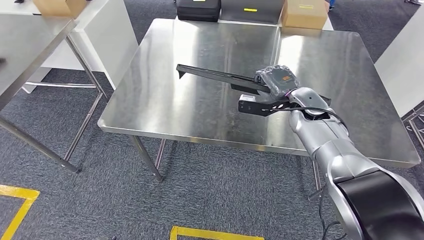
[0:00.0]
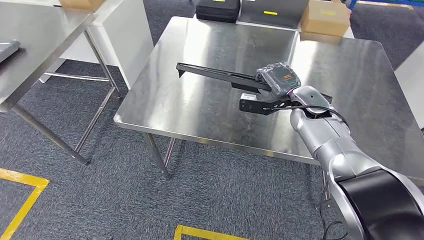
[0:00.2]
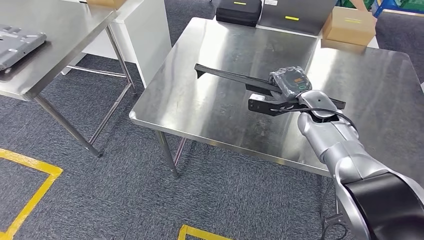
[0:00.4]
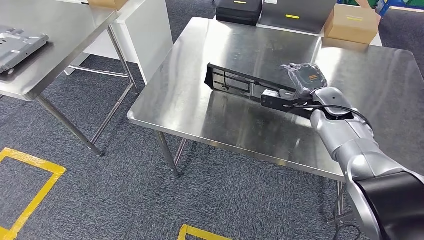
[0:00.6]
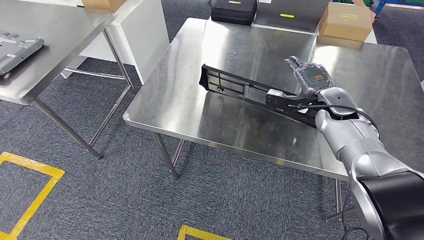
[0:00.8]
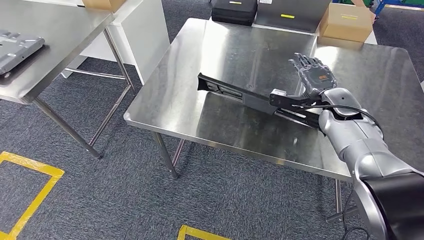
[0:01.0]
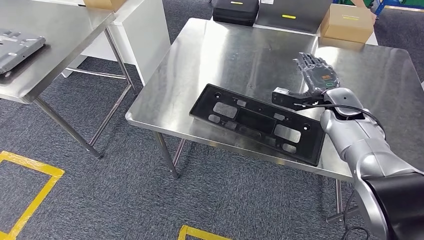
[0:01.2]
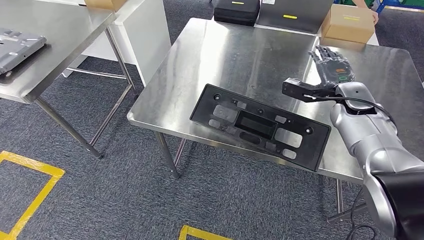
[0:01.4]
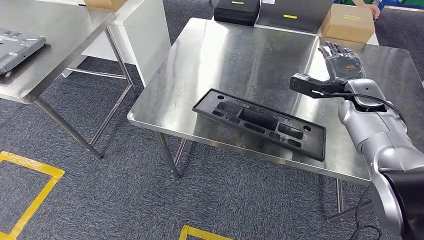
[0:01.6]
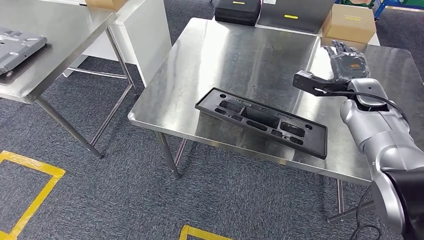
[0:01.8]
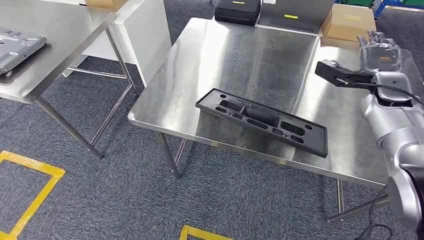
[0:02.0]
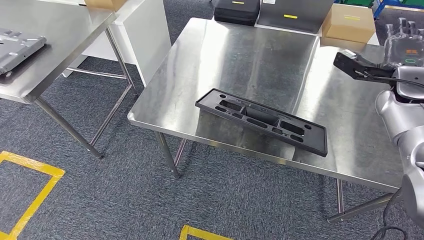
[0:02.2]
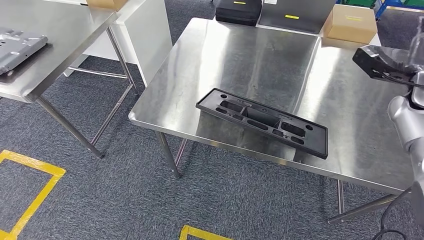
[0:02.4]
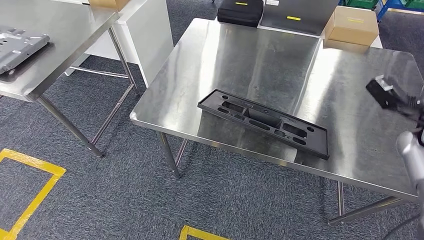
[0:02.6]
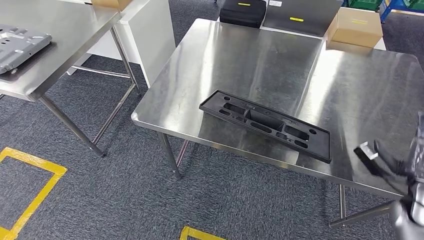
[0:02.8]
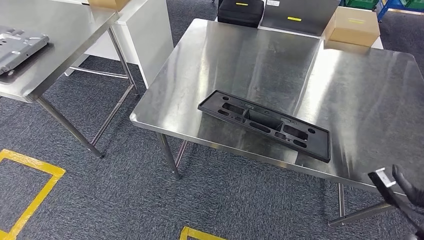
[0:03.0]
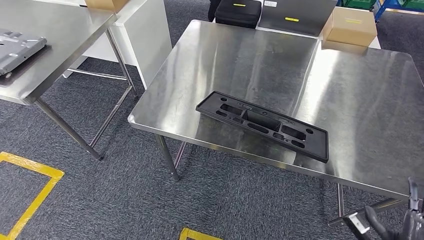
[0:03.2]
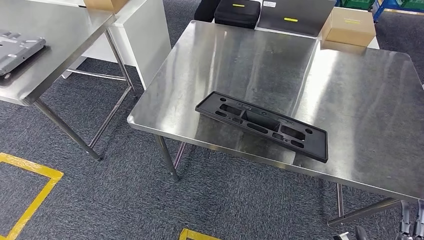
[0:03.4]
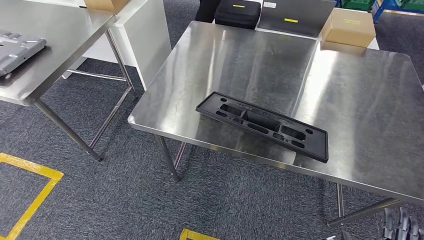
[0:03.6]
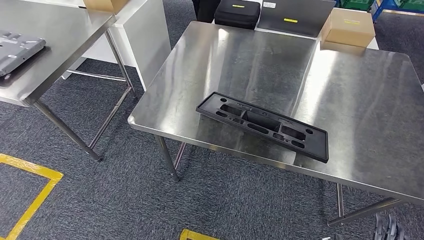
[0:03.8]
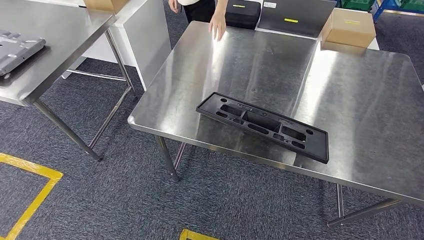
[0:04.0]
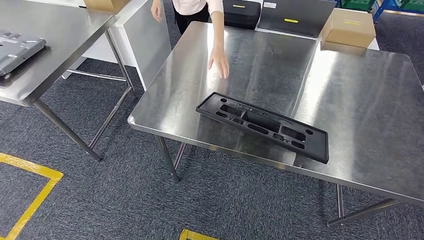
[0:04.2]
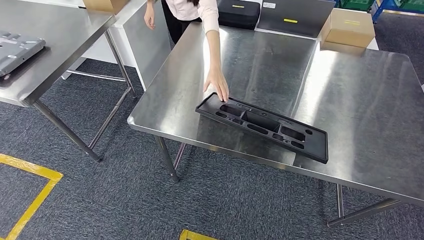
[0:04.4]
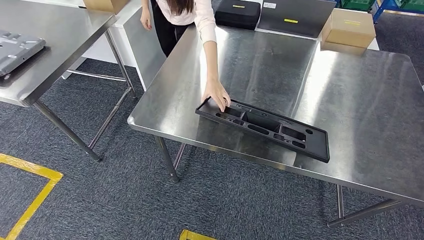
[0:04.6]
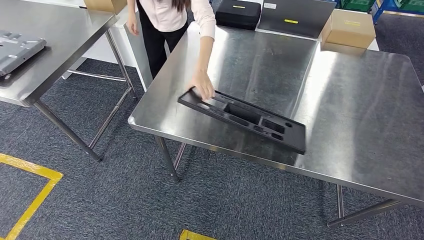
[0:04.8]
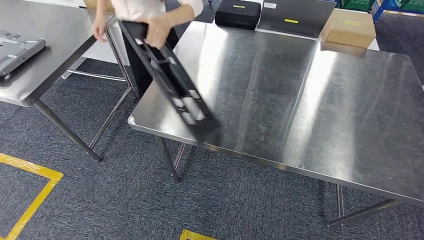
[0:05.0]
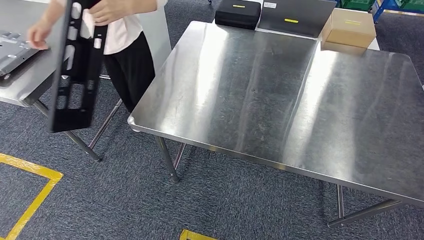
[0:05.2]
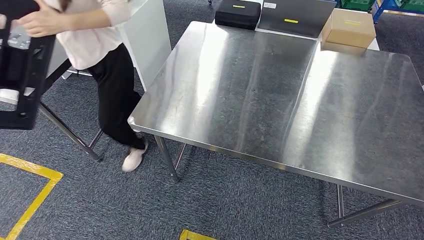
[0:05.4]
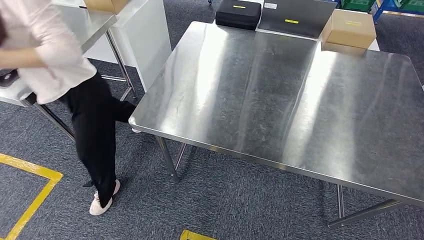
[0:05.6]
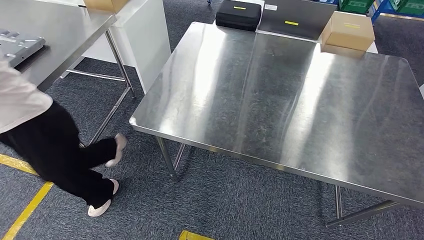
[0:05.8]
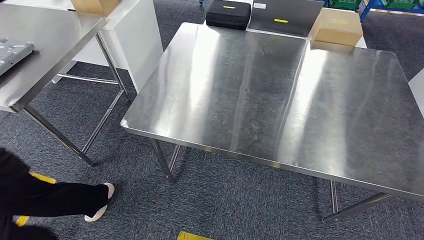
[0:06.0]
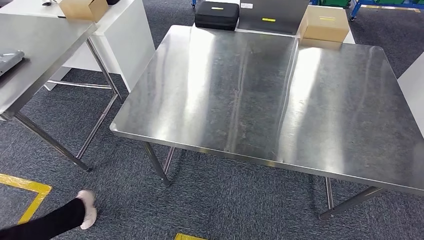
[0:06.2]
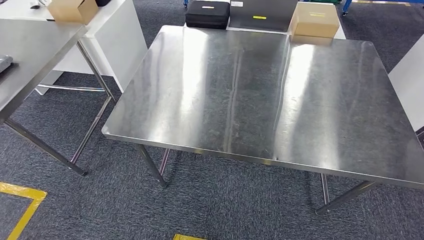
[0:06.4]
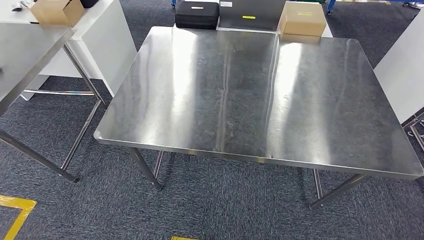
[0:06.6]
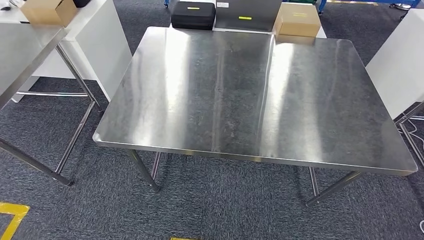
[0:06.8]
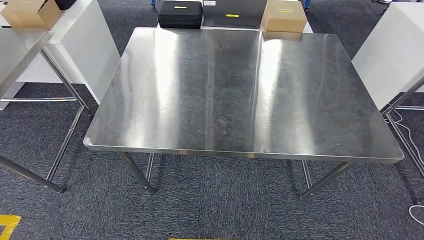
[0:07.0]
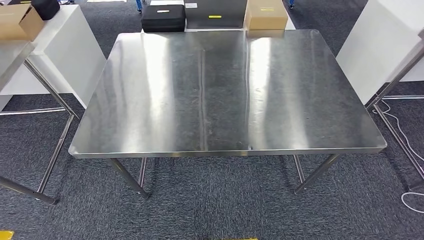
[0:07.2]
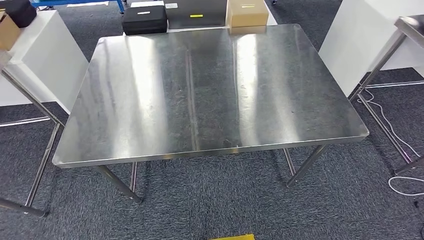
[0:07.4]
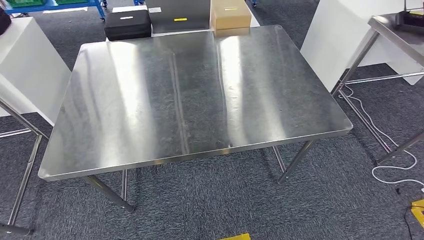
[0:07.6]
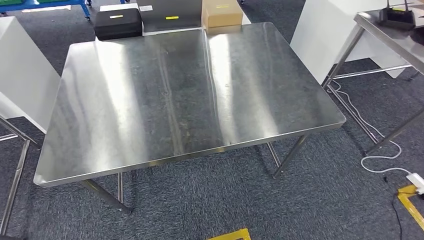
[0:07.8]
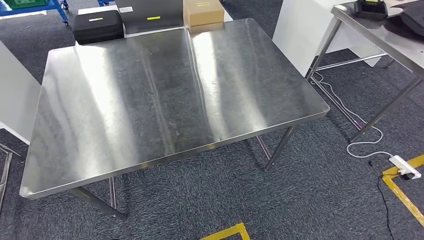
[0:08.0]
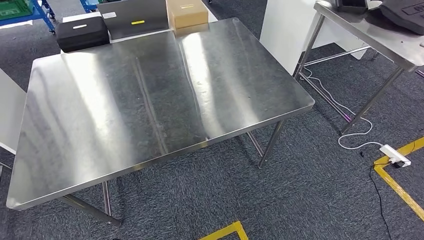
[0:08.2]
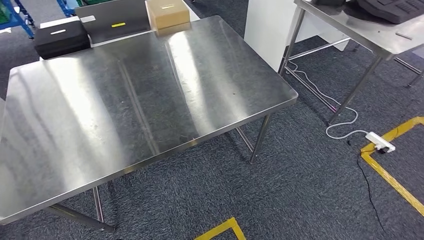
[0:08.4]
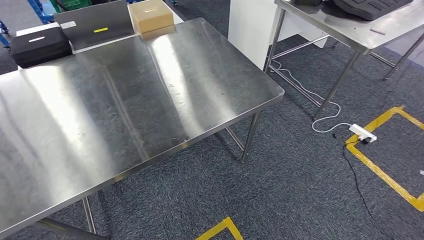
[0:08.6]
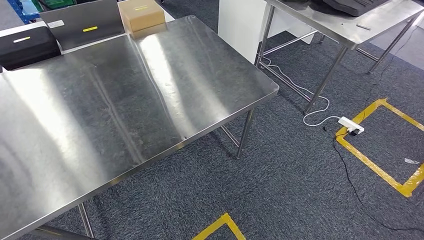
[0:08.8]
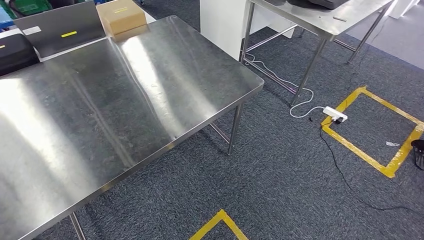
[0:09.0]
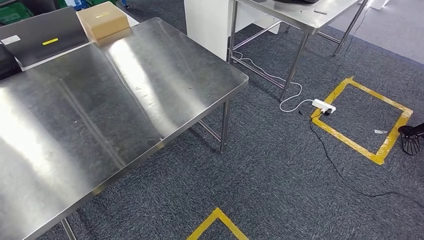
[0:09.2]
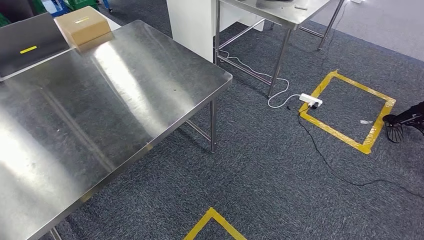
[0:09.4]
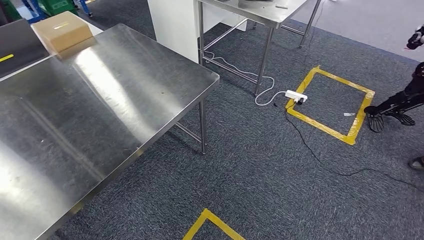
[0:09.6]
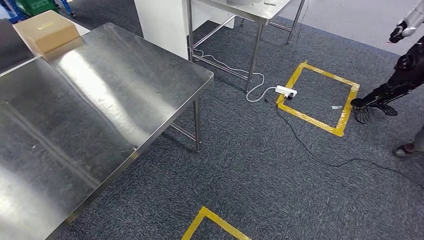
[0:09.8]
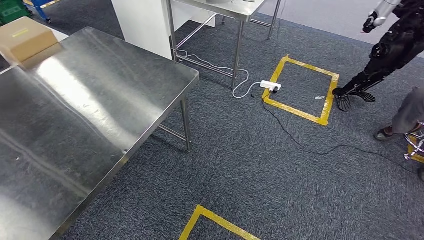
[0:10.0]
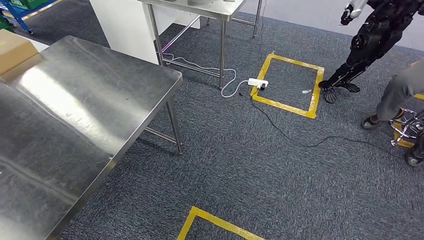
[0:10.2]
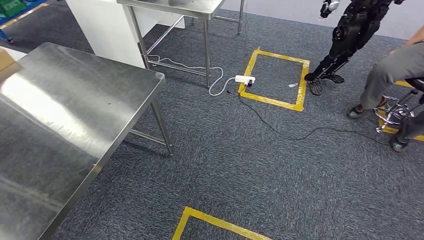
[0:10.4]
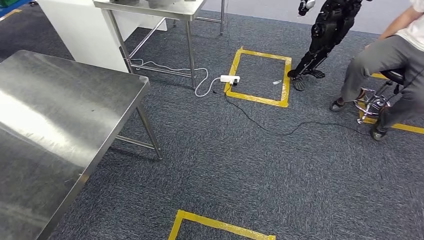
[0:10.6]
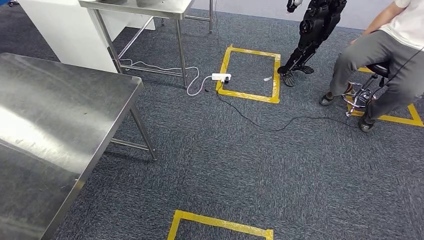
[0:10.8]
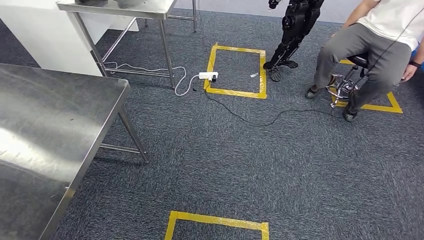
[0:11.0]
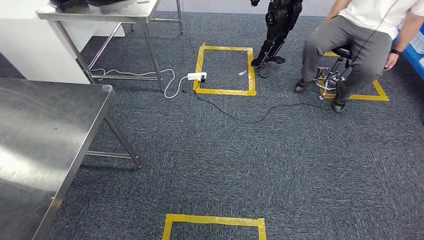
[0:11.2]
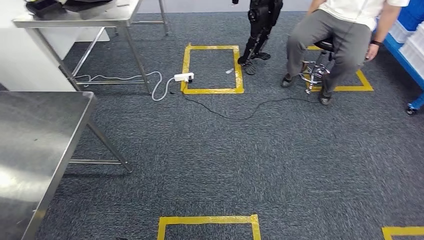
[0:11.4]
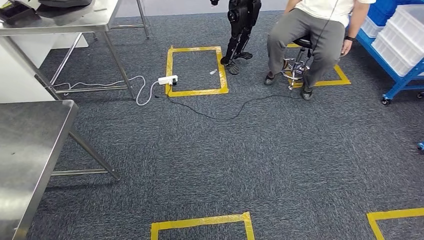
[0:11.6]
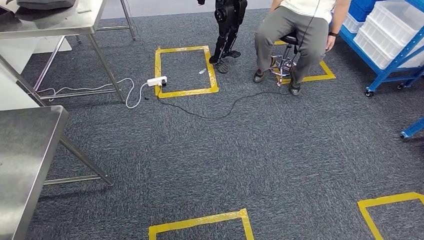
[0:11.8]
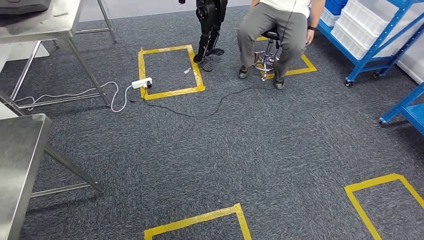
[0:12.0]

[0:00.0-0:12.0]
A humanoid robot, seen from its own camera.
Step, 0:00.0 to 0:04.0: Insert the large material into the corresponding slot on the workbench.

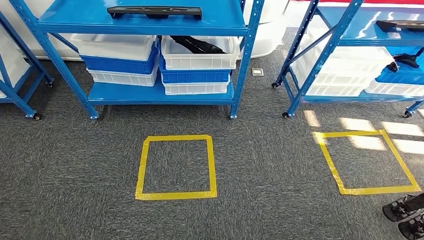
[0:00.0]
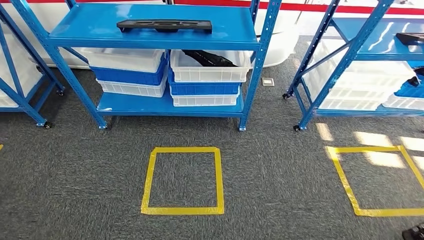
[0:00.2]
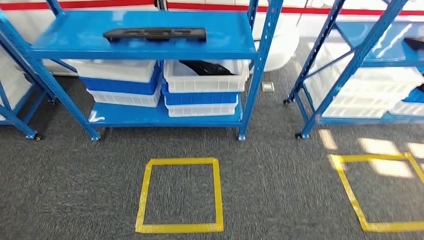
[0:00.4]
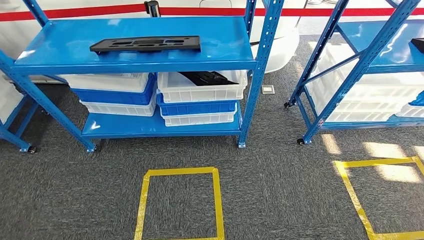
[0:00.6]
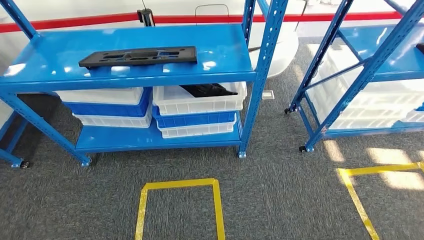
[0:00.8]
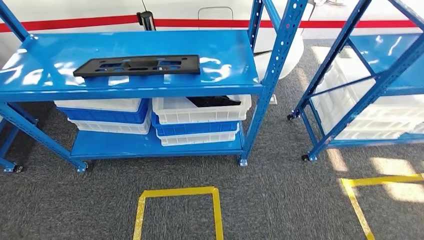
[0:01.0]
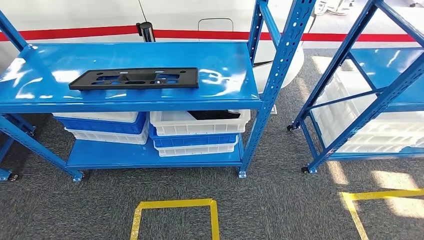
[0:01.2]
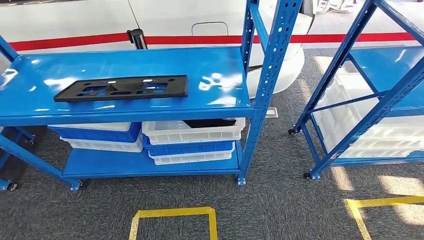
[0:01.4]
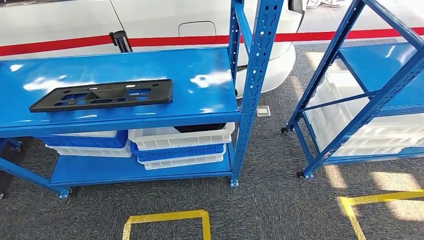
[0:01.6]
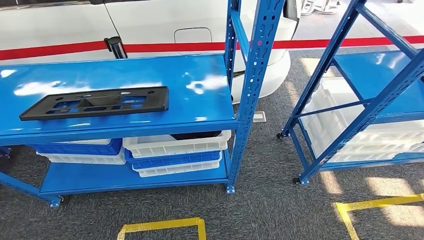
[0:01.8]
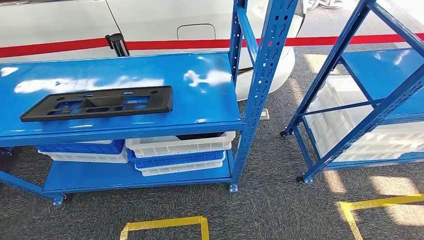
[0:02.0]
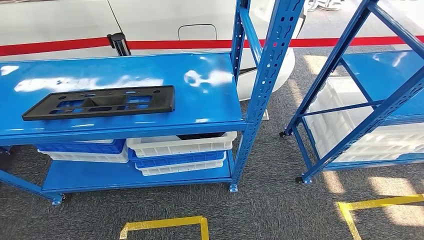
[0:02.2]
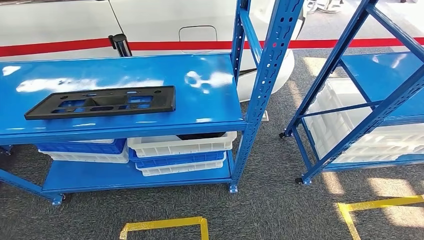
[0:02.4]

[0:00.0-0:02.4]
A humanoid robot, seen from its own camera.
Step, 0:00.0 to 0:02.4: Return to the initial position at the shelf.
